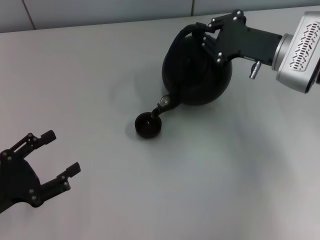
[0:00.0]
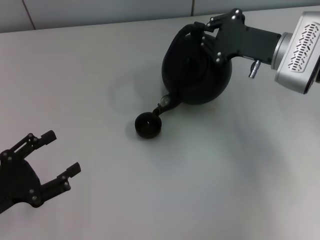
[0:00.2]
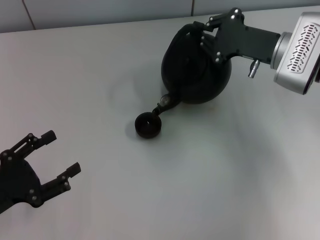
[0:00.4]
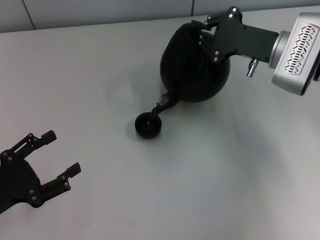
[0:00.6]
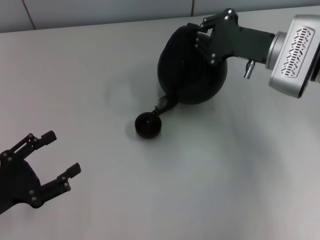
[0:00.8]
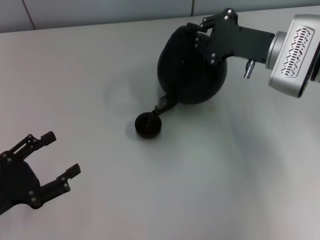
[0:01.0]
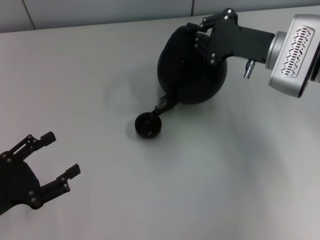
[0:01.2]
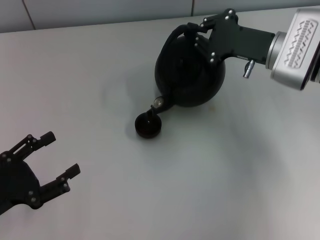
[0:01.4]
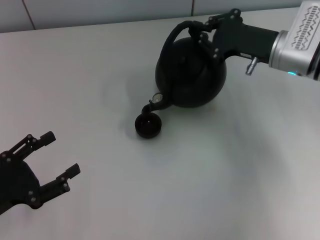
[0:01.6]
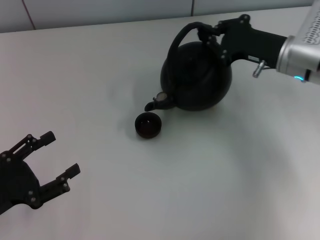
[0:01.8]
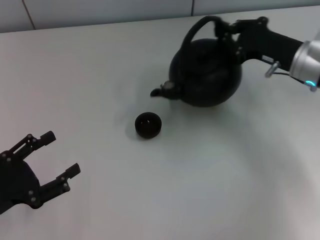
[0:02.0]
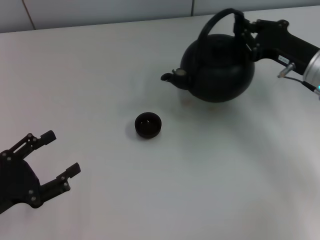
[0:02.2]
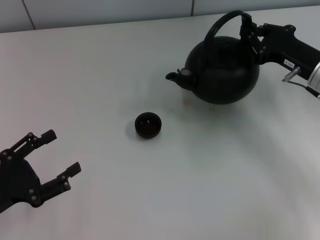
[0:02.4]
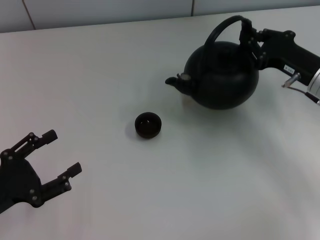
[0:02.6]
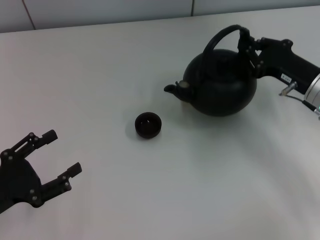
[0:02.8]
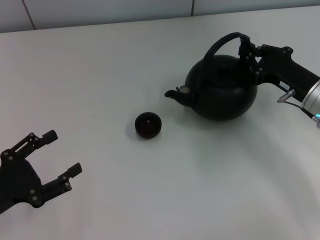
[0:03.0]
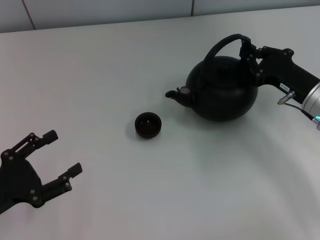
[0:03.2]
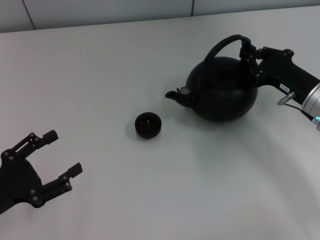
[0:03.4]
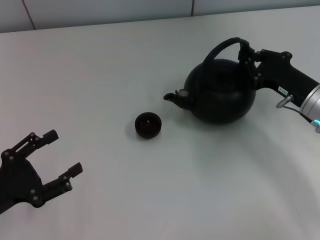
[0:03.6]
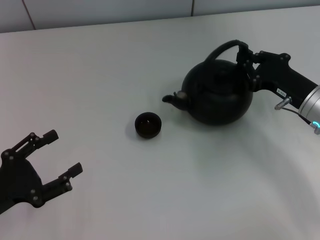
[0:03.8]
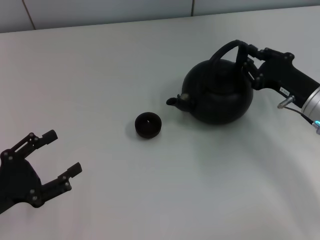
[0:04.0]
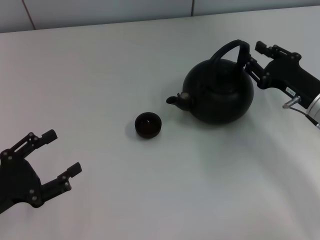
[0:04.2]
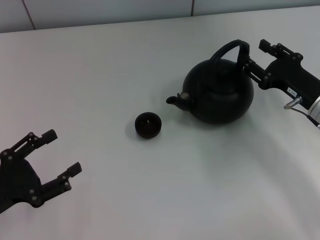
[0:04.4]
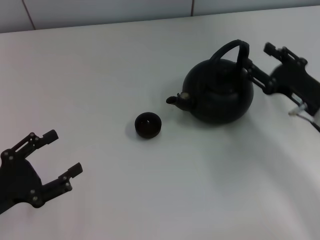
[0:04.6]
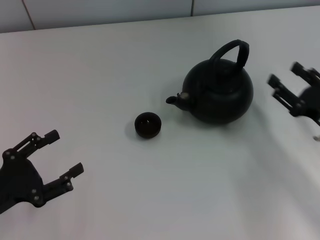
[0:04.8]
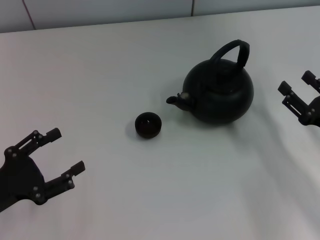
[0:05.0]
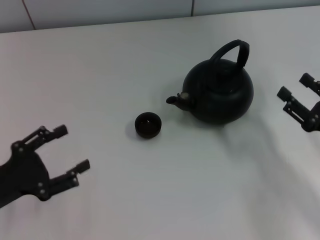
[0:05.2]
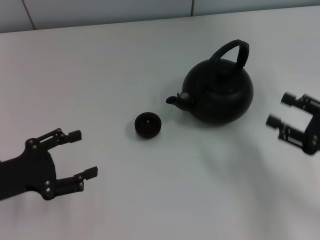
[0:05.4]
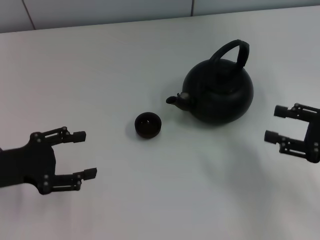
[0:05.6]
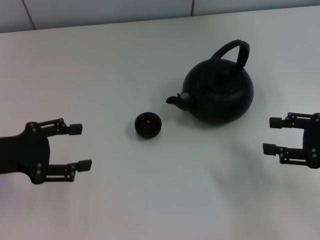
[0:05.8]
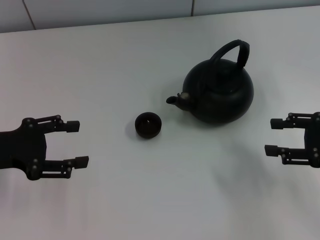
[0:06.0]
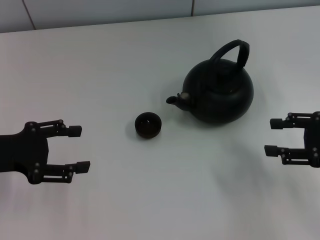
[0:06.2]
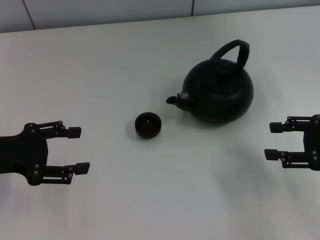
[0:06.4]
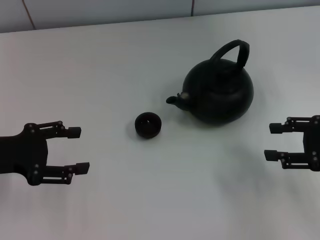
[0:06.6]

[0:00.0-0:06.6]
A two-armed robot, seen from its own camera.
Task of the whole recording: Grasp the handle of the teapot with one hand and pour tea into the teacup.
Step, 0:02.0 to 0:04.6: Put down the teapot with the right gripper.
0:00.0 to 0:01.6: The grippers move only a little.
0:01.6 to 0:03.2: The right gripper moves backward and downward, some 10 cm.
0:03.2 to 0:05.0: The right gripper is displaced backward by approximately 10 cm, and opens.
0:05.0 to 0:06.6: The left gripper shifts some 10 cm forward and upward; the right gripper shifts some 5 cm upward.
